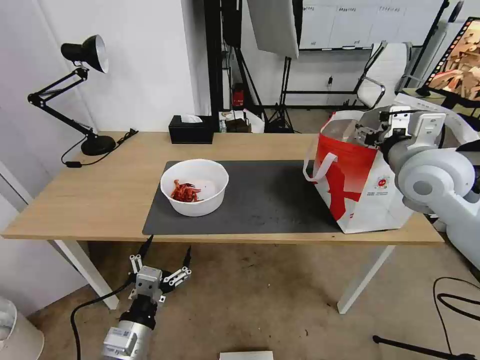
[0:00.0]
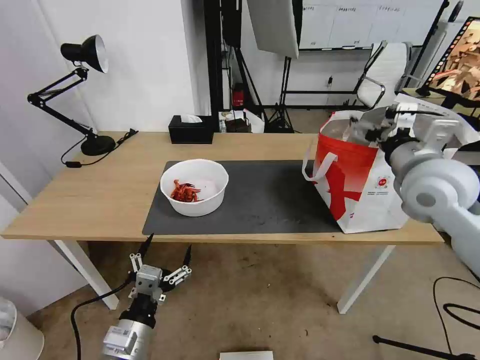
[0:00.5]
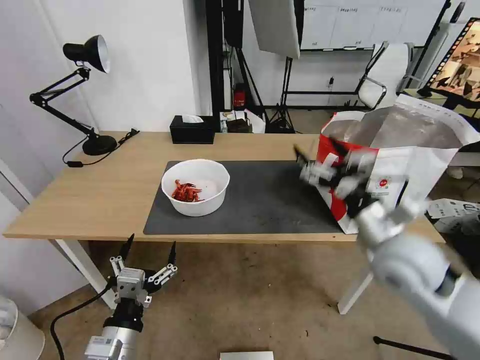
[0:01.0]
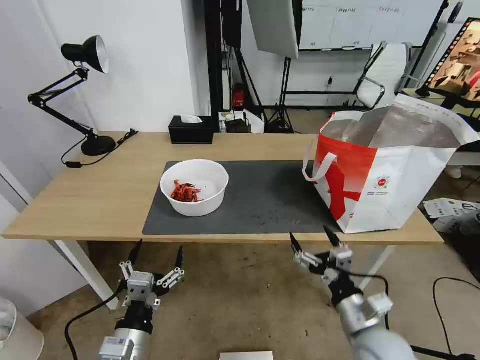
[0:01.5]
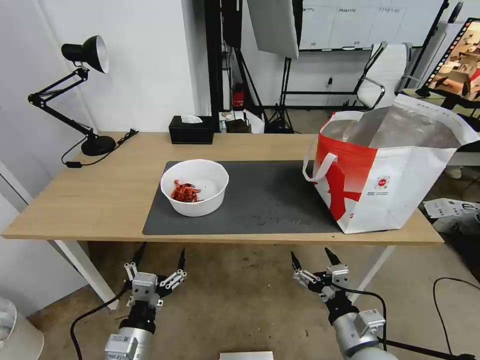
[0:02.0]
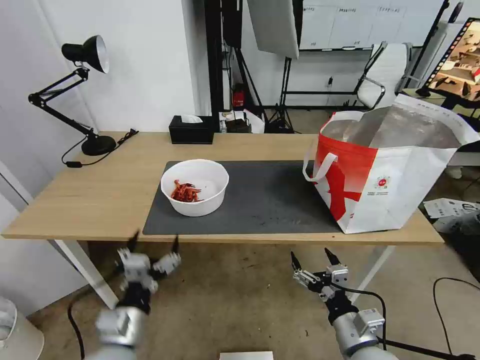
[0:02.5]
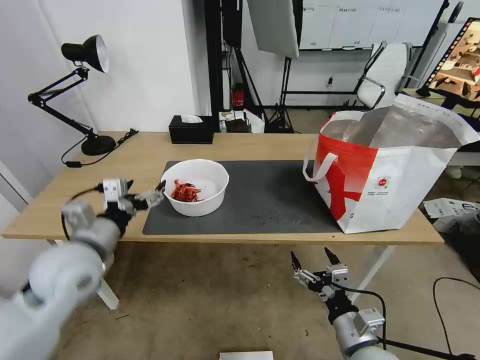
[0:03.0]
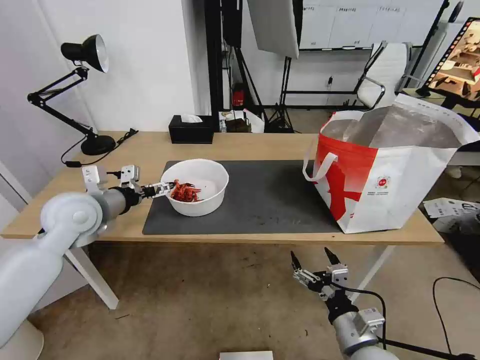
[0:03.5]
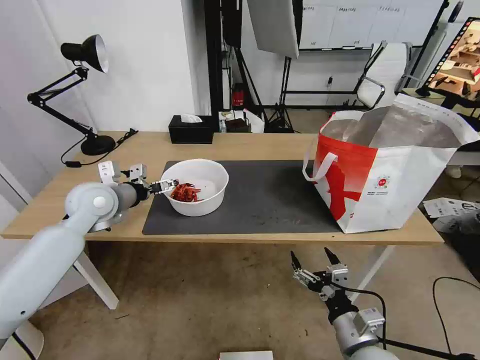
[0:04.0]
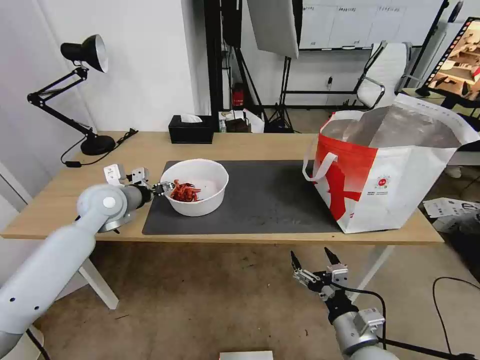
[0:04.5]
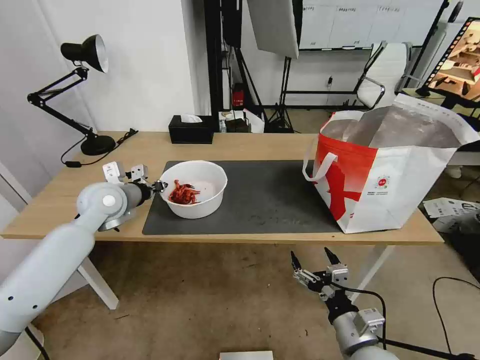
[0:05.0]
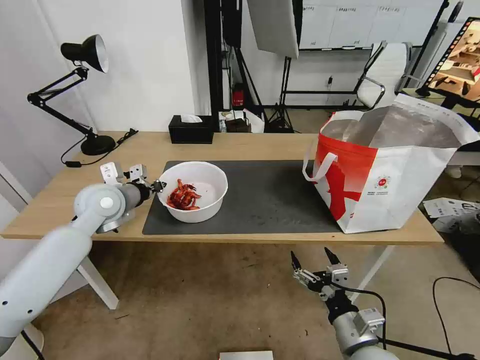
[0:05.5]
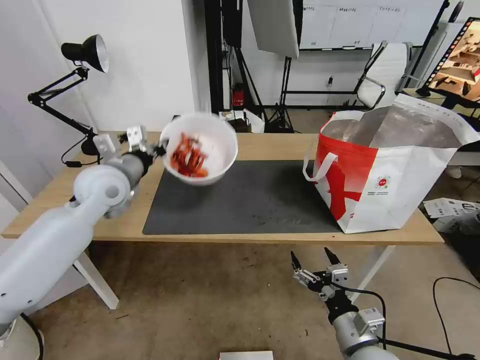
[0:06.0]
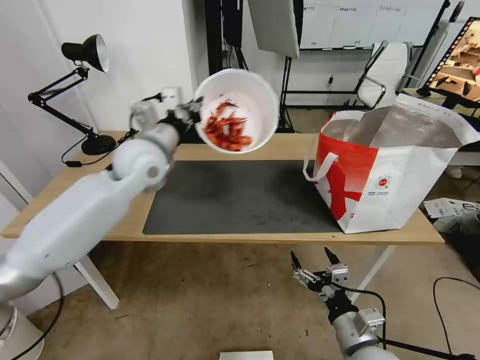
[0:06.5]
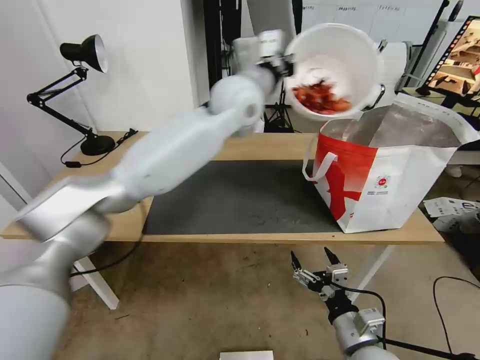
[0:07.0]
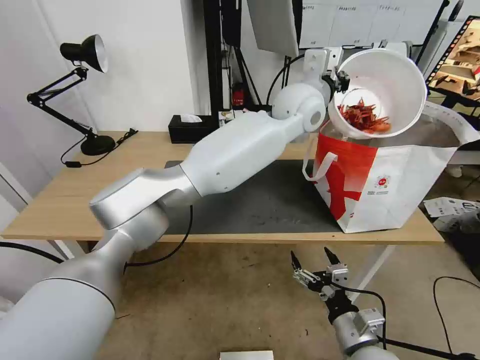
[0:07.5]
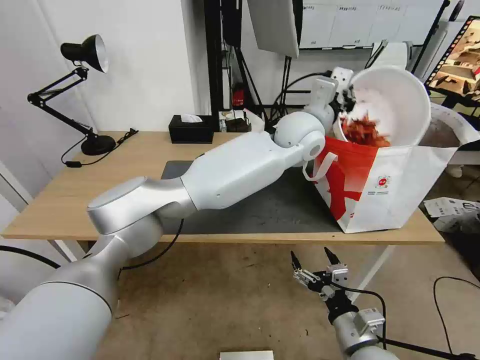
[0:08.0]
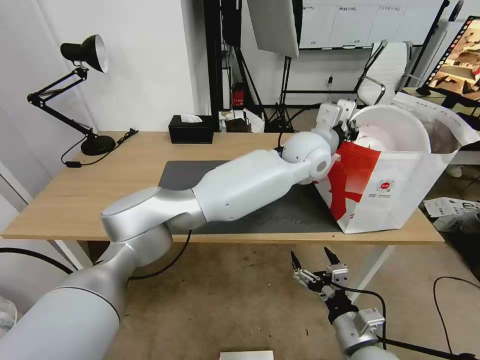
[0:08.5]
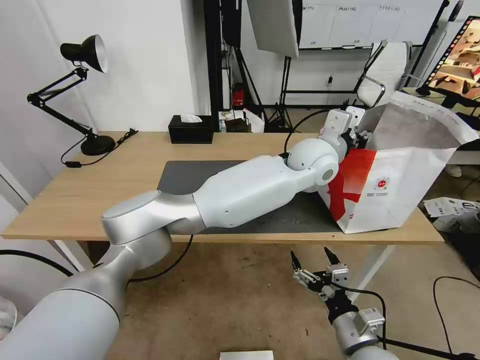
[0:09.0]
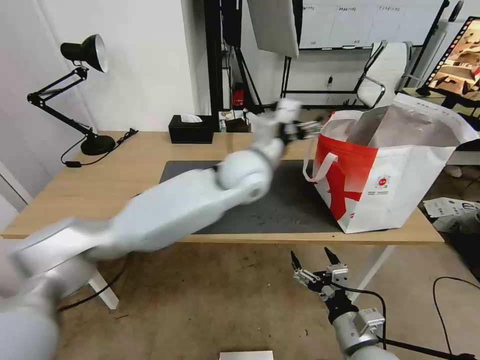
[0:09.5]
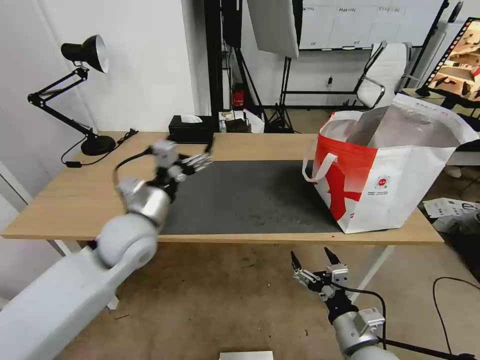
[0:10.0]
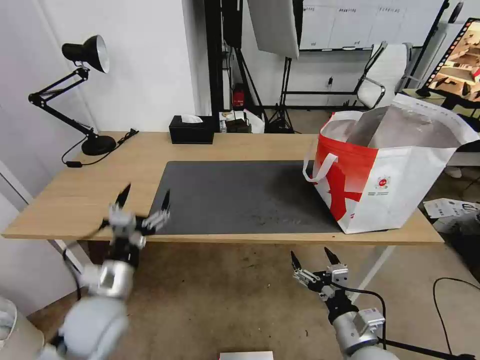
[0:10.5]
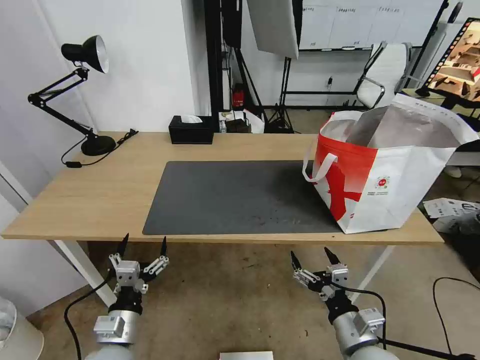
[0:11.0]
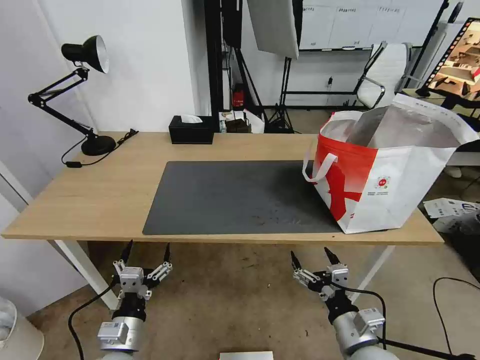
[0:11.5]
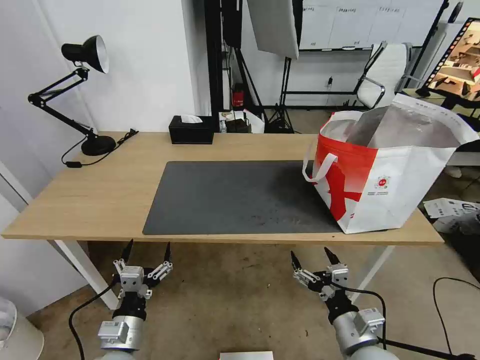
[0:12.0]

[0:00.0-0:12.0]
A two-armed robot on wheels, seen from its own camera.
Task of the whole recording: Pick up the trash from the table and place it into the takeout bag.
0.0 to 2.0 s: The right gripper goes approximately 35 cm downward and backward.
2.0 to 4.0 s: The left gripper shifts roughly 35 cm forward and upward.
4.0 to 6.0 s: The left gripper changes place by approximately 5 cm, and closes its fingers.
6.0 to 8.0 s: The left gripper goes approximately 40 cm to the right.
8.0 to 10.0 s: The left gripper is displaced to the left and backward by about 35 cm, and opens up.
10.0 to 12.0 s: The left gripper is displaced downward and backward by approximately 25 cm.

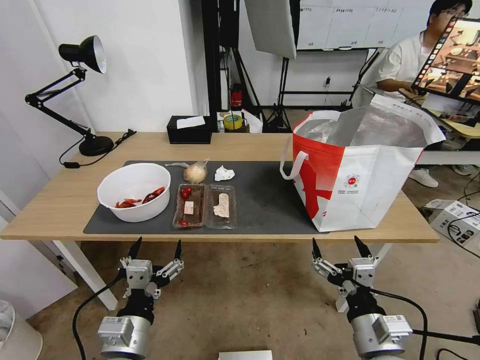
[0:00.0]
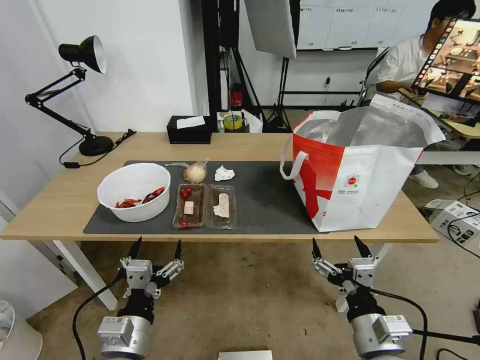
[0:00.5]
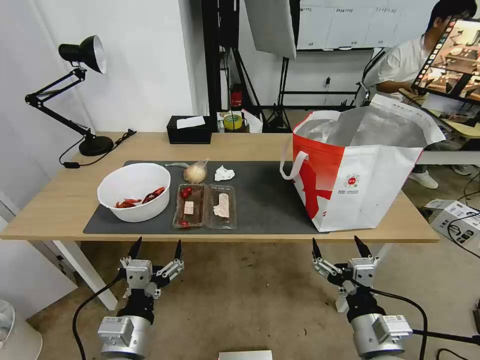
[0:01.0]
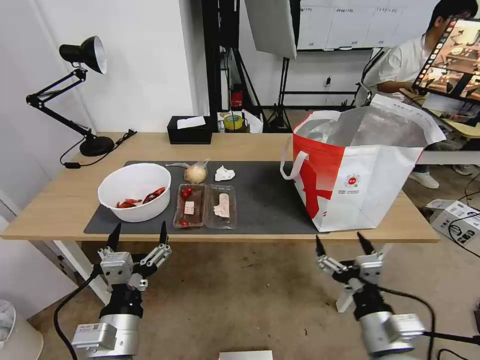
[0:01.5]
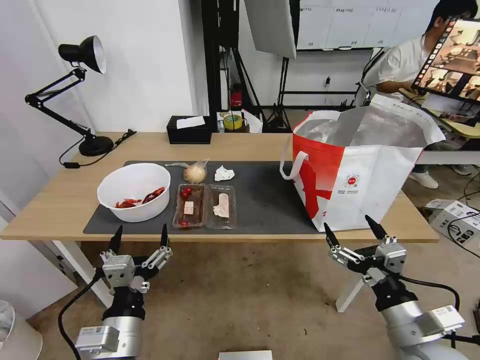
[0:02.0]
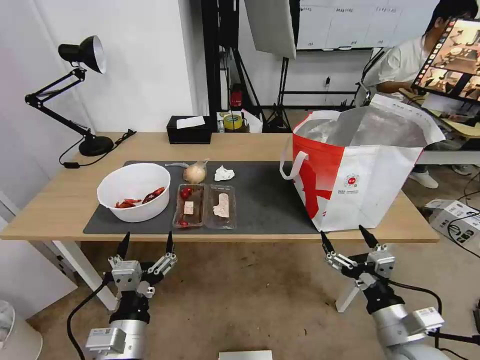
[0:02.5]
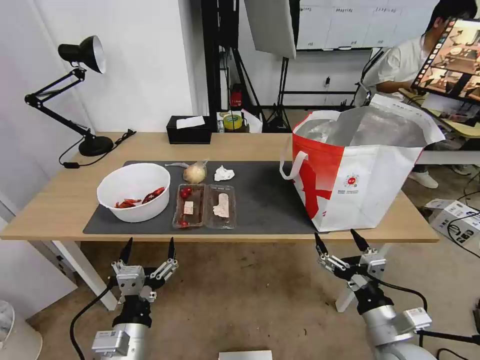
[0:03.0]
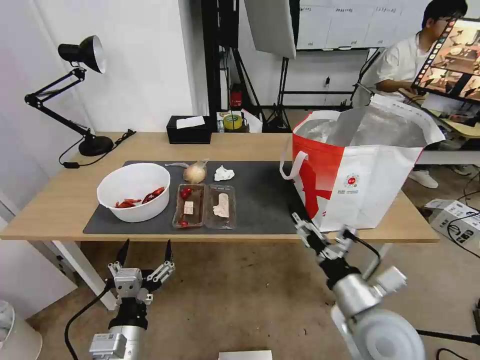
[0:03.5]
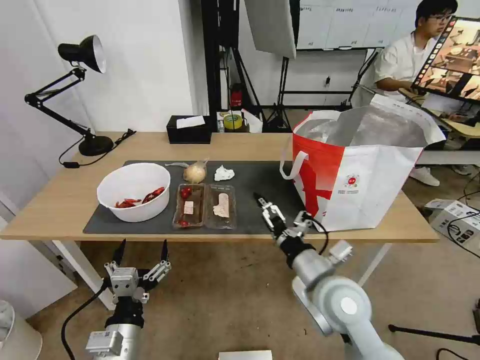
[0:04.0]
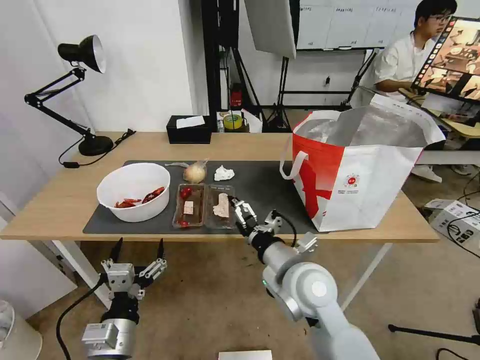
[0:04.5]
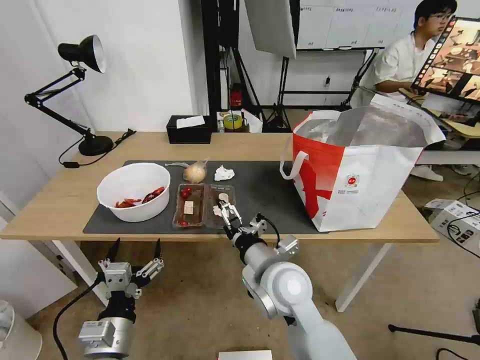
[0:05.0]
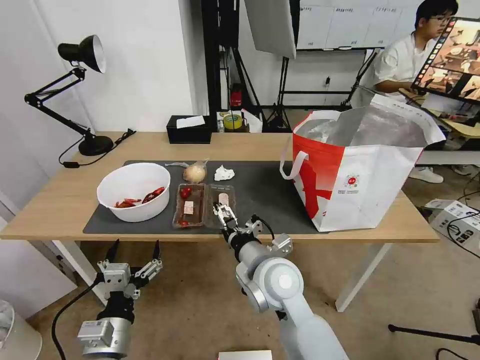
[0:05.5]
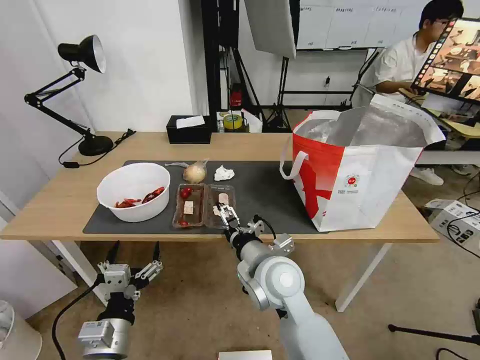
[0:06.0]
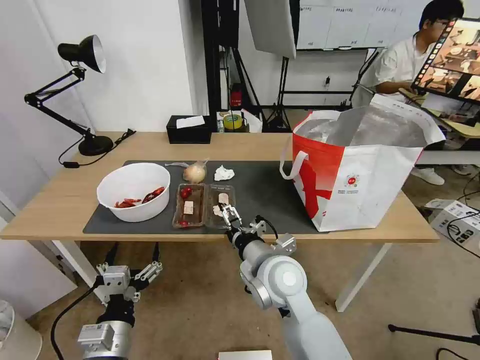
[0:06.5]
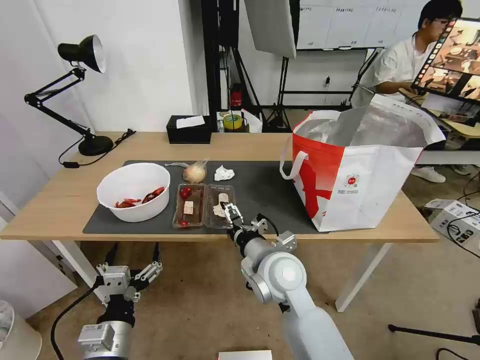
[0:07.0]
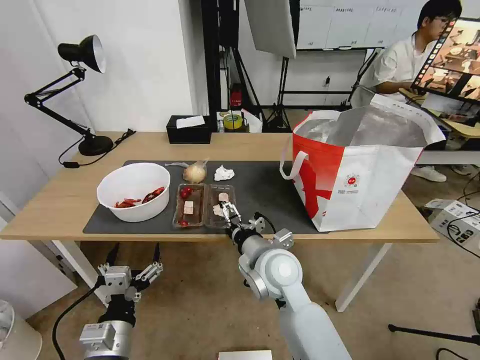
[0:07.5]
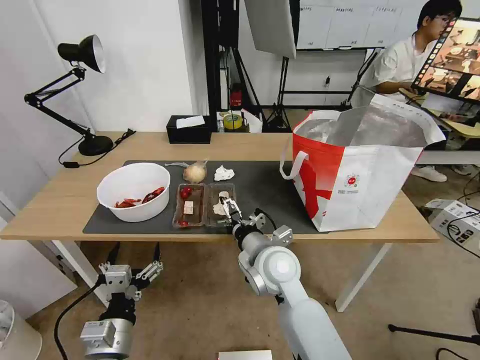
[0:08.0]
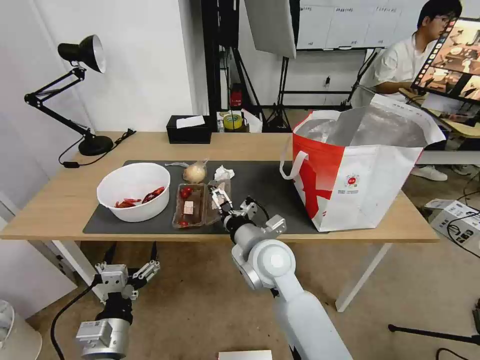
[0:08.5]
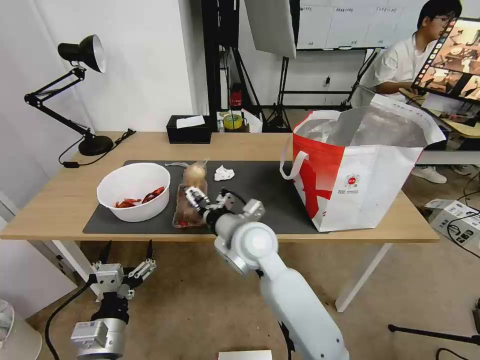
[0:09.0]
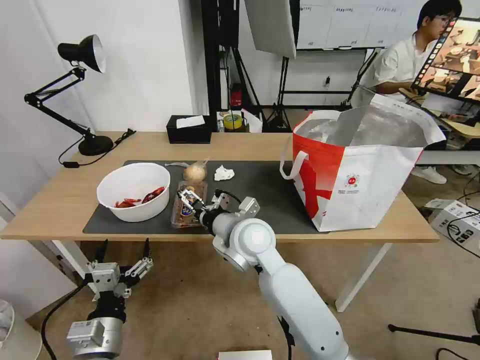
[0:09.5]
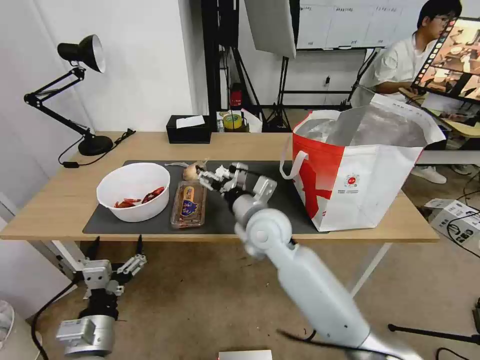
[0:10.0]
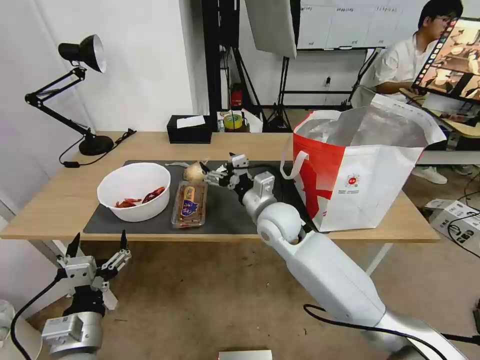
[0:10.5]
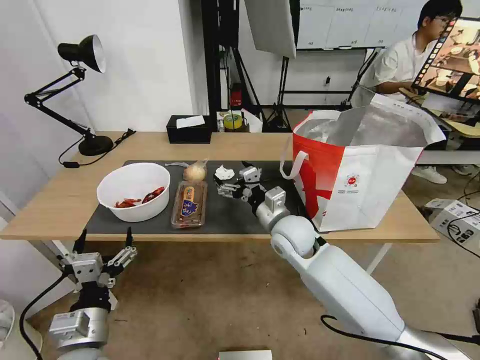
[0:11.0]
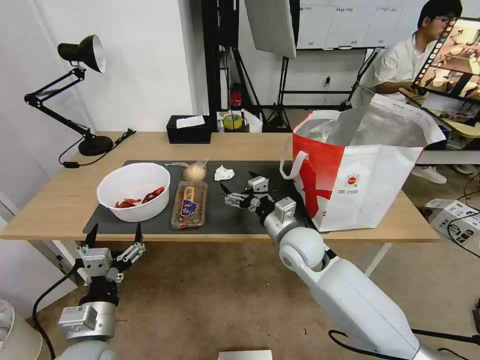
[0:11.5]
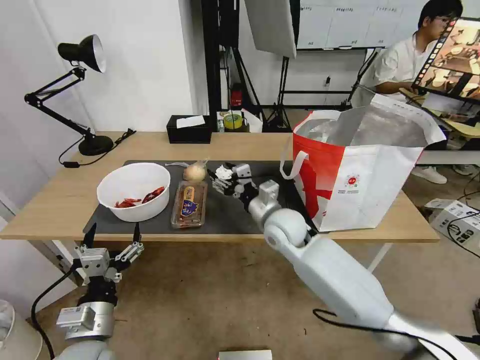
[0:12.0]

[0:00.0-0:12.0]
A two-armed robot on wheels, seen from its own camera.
Task of the whole recording: Pick up the trash from the table and place it into the takeout bag.
2.0 to 4.0 s: The left gripper shifts by some 5 cm; the right gripper moves to the left and forward, approximately 15 cm.
4.0 to 6.0 s: The right gripper travels to the left by about 10 cm.
6.0 to 8.0 s: The grippers make only small movements.
8.0 to 10.0 s: The right gripper goes about 5 cm forward.
10.0 to 12.0 s: The right gripper ends up roughly 5 cm from where it was, and closes its fingers.

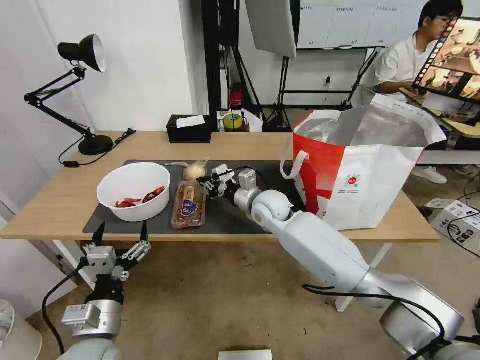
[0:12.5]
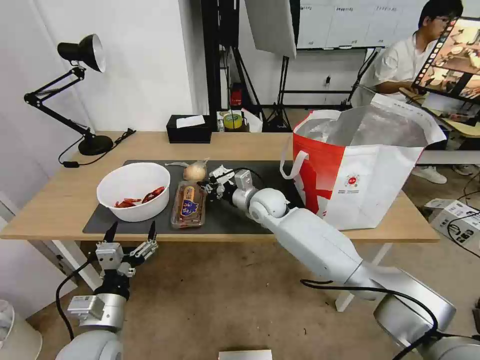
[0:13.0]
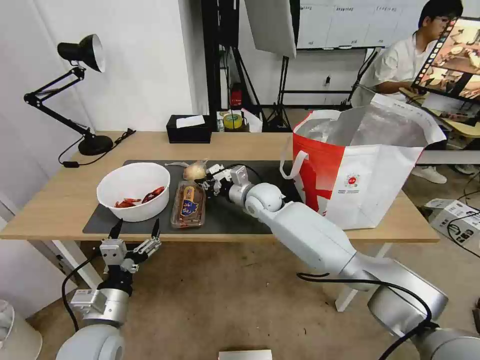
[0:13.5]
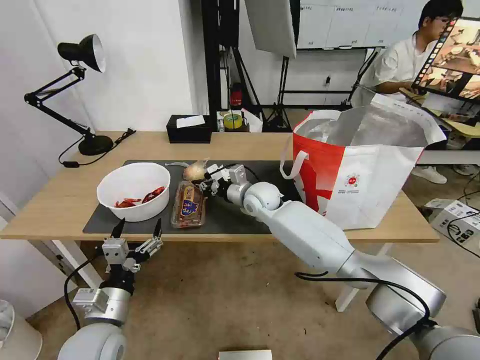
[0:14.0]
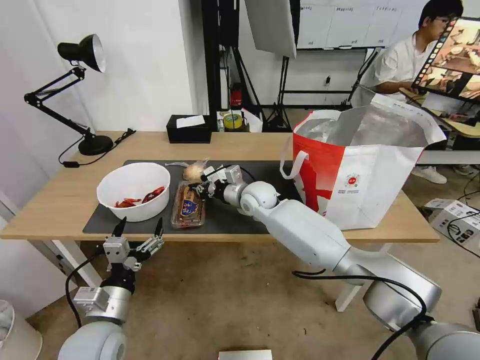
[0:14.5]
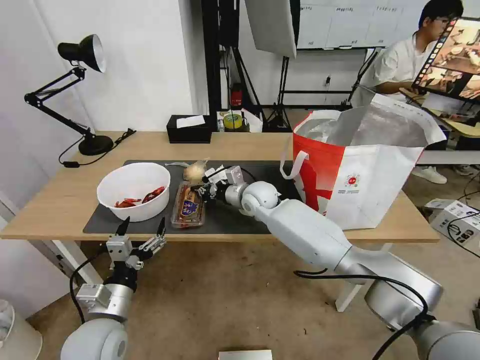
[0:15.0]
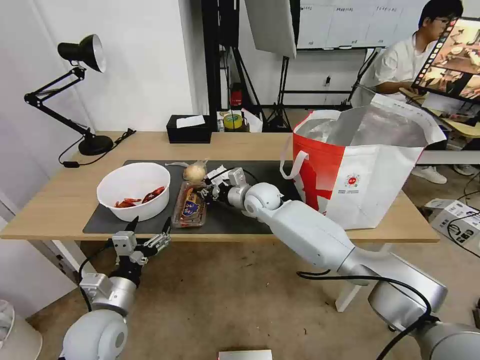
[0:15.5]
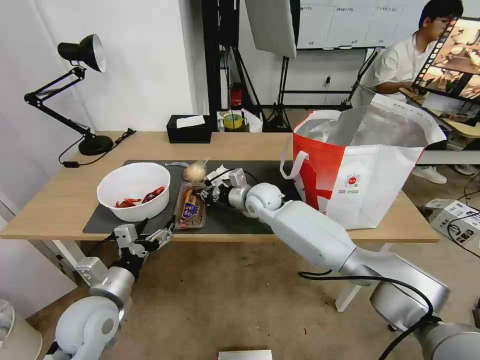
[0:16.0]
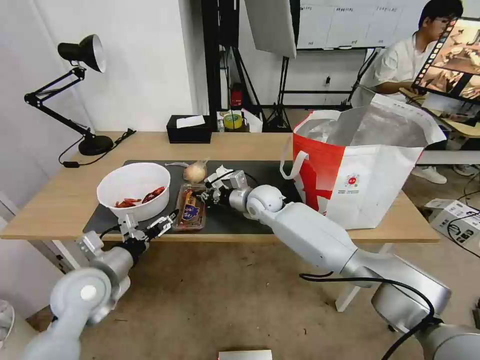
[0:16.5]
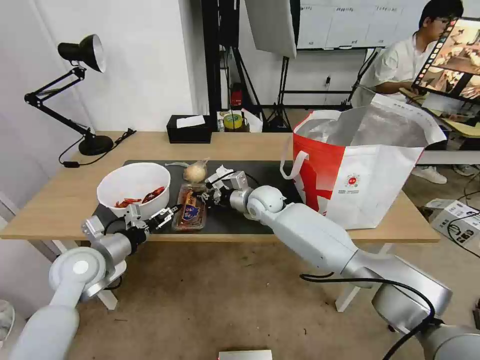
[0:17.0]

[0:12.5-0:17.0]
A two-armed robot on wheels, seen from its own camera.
Task of the whole recording: Pick up the trash from the table and place it into the takeout bag.
12.5 to 14.5 s: The grippers move only a little.
14.5 to 17.0 s: The left gripper is displaced forward, to the left and upward by approximately 15 cm.
